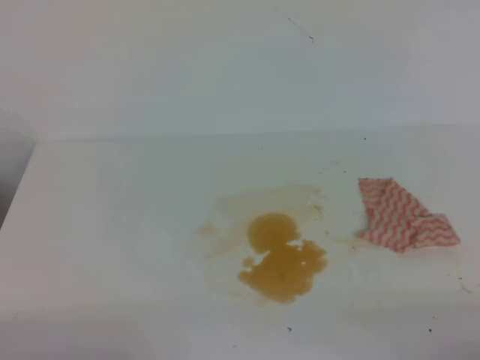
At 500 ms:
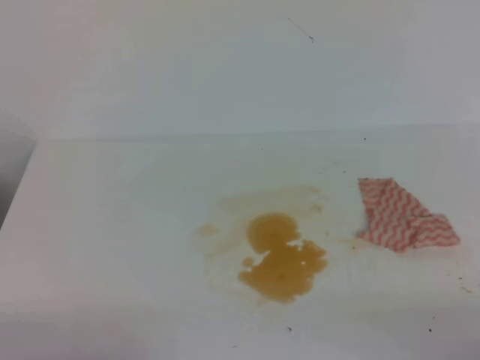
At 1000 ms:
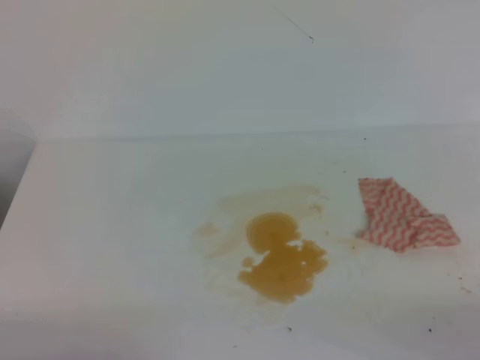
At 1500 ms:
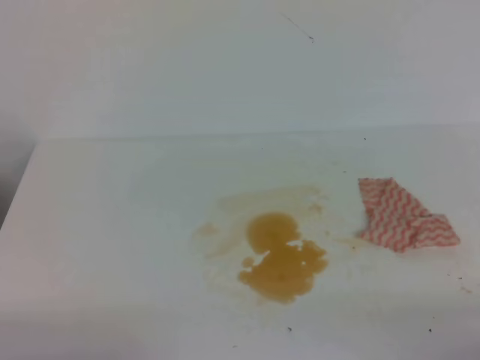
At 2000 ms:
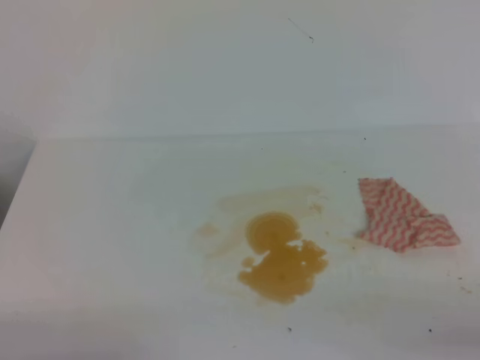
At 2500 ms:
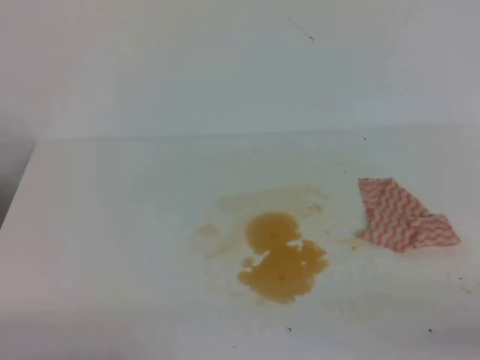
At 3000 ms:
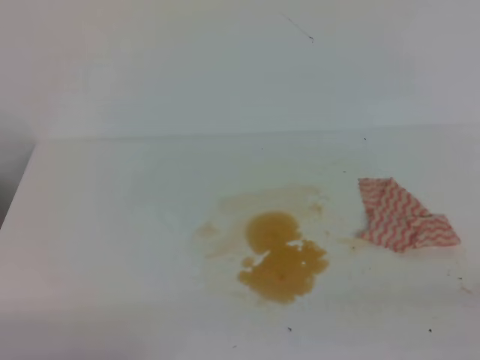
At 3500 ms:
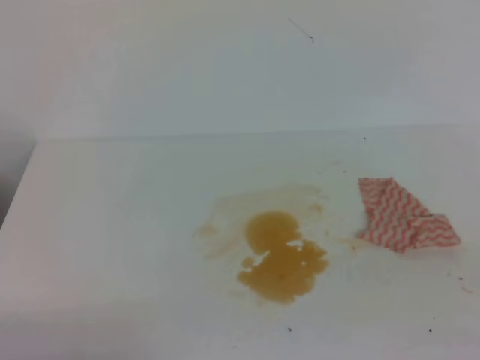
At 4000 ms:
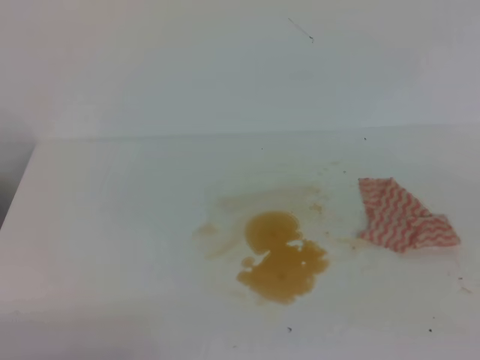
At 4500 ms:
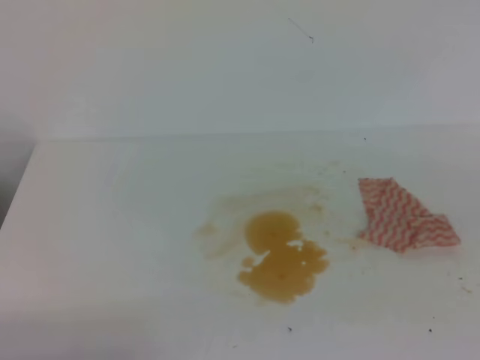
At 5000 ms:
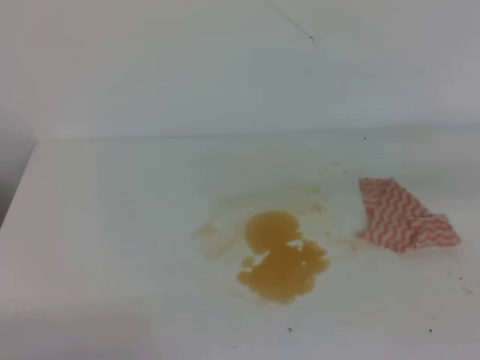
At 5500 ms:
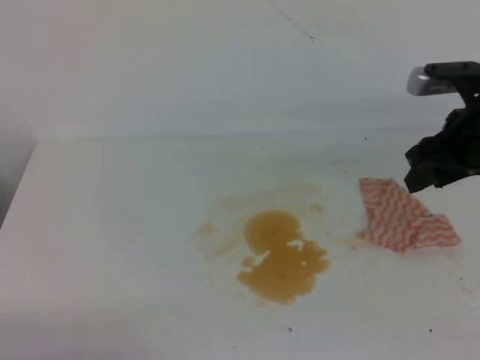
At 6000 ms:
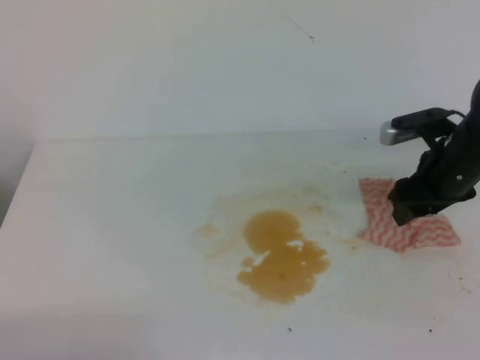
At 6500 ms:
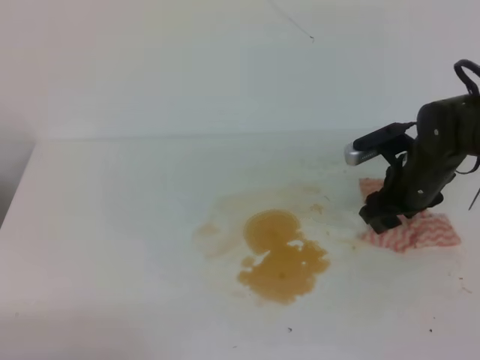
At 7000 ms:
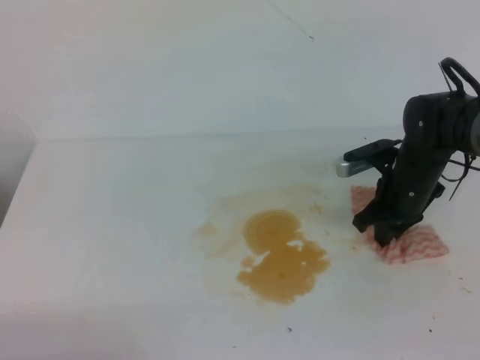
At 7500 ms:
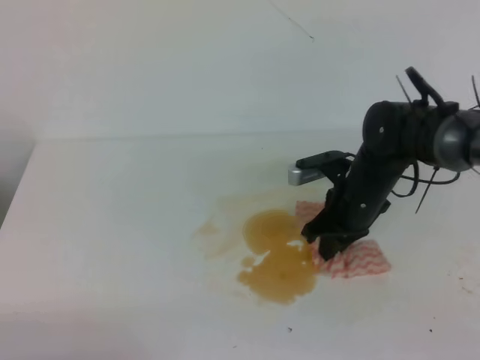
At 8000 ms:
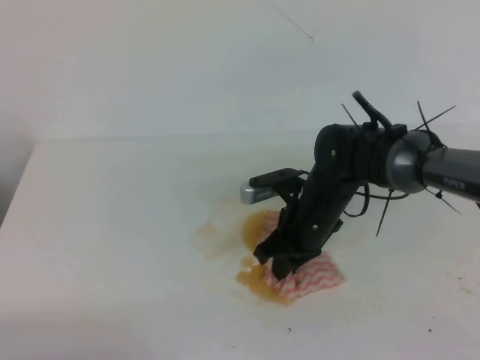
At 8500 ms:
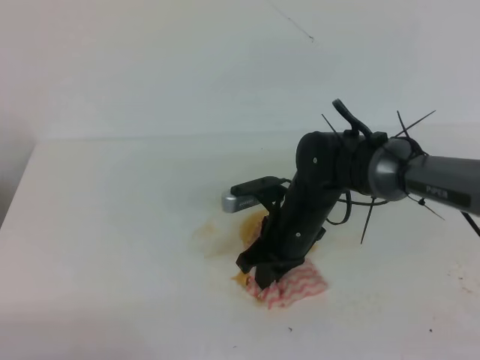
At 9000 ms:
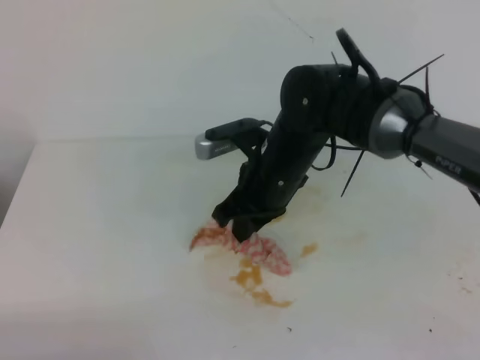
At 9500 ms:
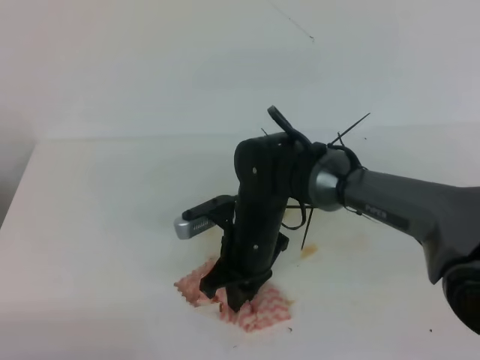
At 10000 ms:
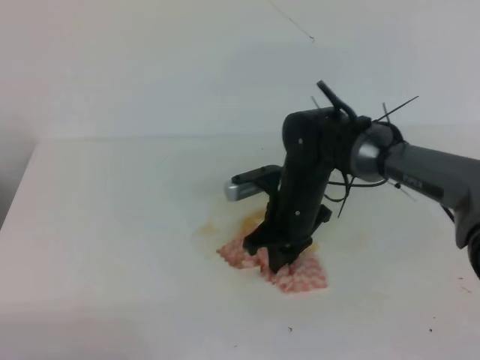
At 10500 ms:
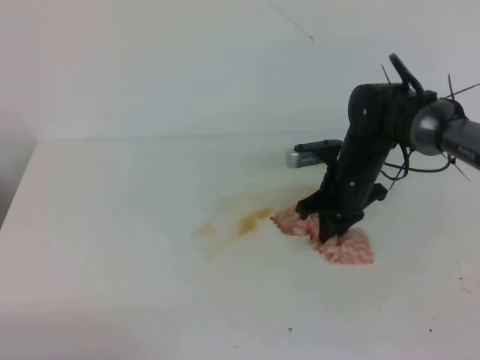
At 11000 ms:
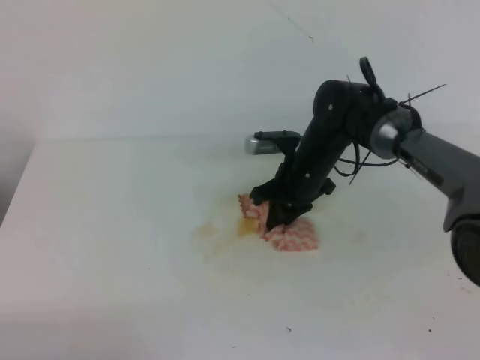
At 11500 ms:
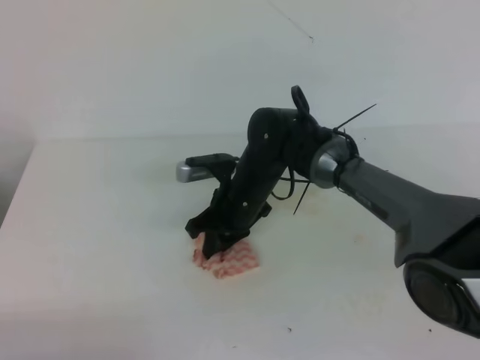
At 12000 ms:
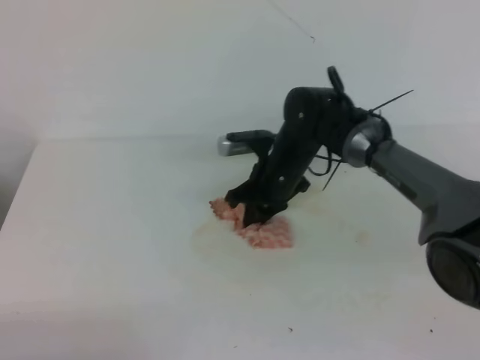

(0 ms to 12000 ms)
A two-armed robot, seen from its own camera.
4000 ms - 6000 ms: The right gripper is displaced forward and downward by roughly 35 cm, and opens its fingers.
6000 ms - 8000 ms: The right gripper is displaced to the left and downward by approximately 20 cm, and closes up.
8000 ms - 10000 ms: The right gripper reaches approximately 10 cm to the left, then returns.
10000 ms - 12000 ms: The right gripper swings left and right, about 15 cm each way, with 2 reversals.

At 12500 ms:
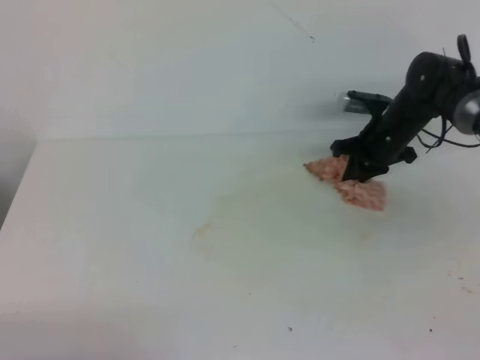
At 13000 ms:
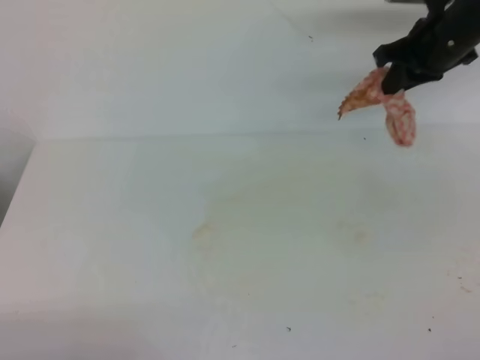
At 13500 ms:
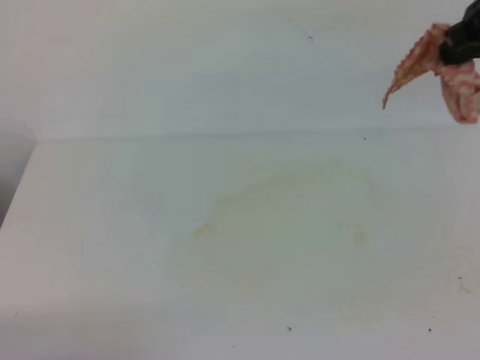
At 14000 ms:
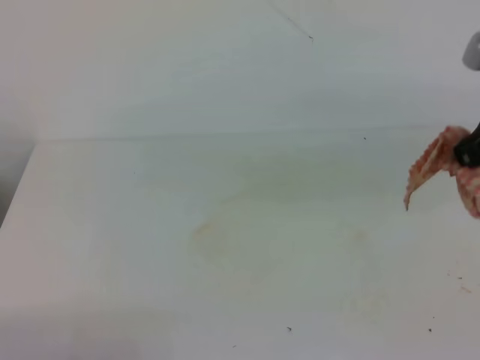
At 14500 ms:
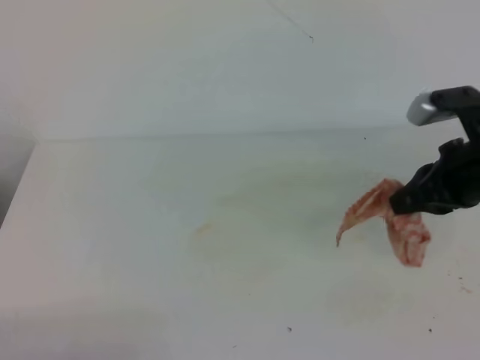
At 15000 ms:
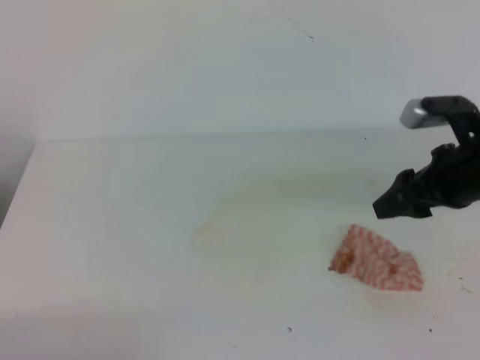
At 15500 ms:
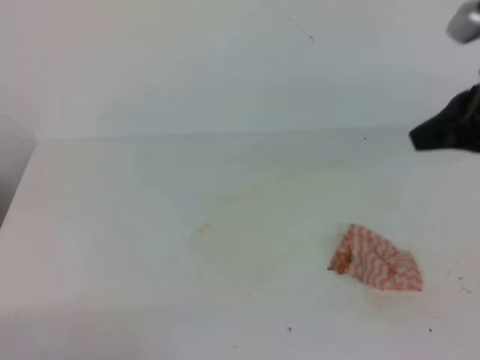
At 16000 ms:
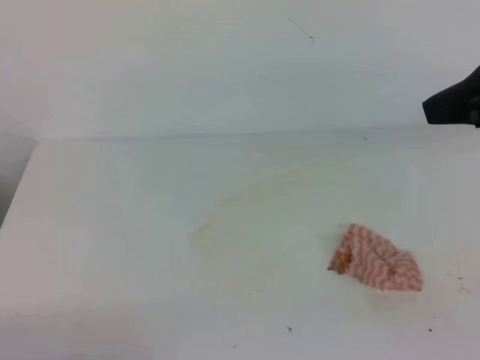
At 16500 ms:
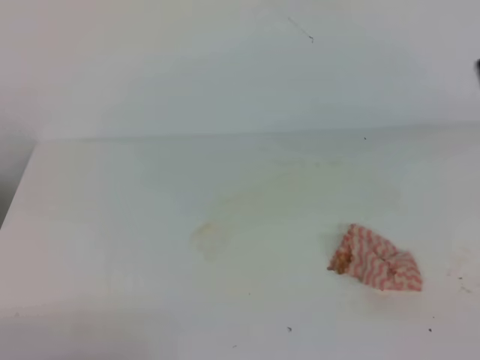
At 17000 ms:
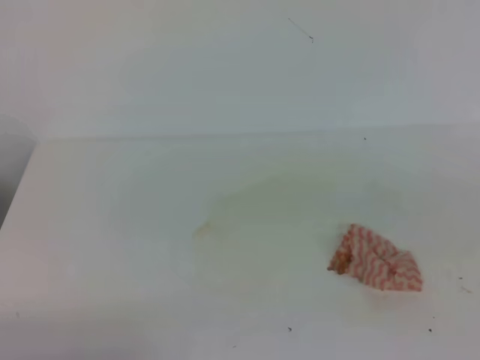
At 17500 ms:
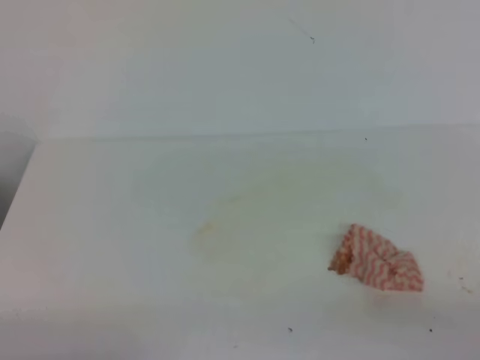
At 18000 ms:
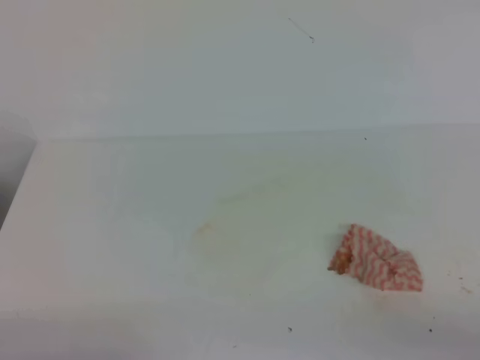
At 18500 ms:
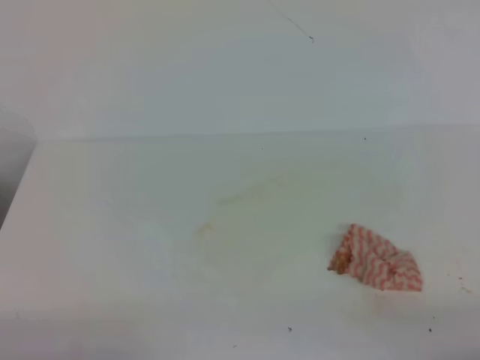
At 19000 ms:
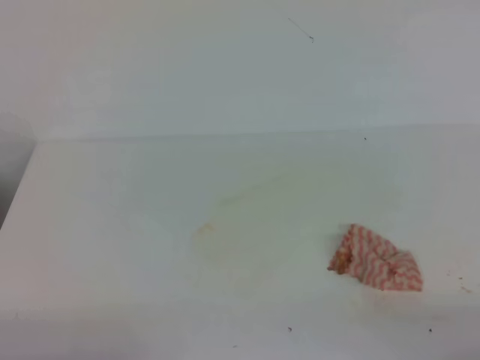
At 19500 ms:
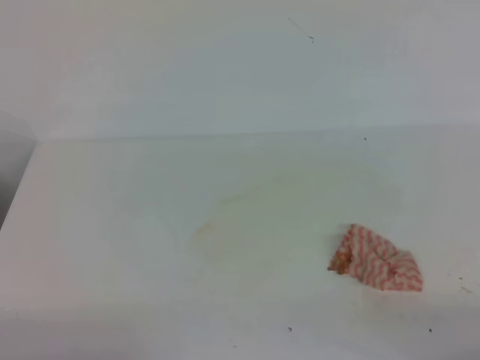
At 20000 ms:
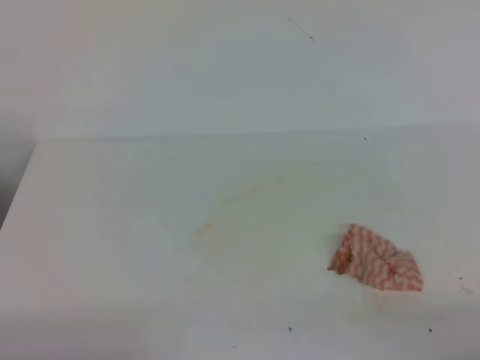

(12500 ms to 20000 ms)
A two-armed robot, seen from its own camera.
12500 ms - 14500 ms: The right gripper shifts some 25 cm backward and upward.
14500 ms - 16500 ms: The right gripper goes roughly 20 cm upward and backward, and opens, then closes once more.
16500 ms - 18000 ms: The right gripper moves downward and backward, roughly 30 cm.
